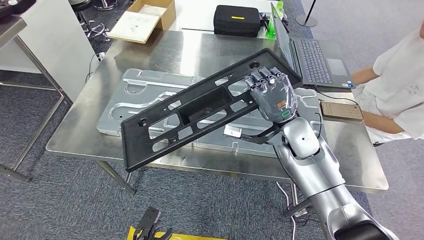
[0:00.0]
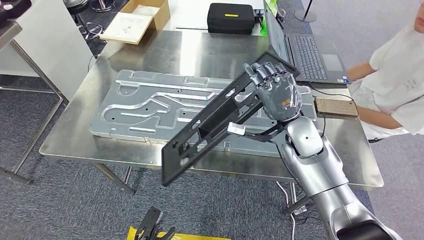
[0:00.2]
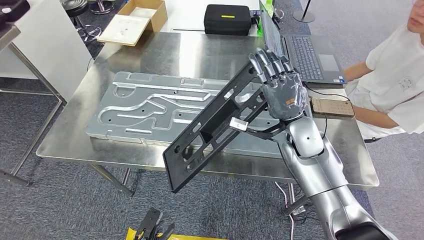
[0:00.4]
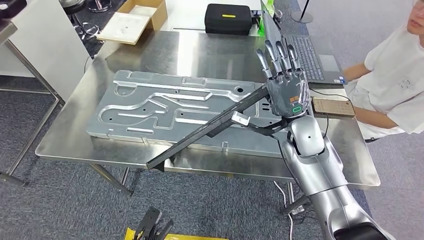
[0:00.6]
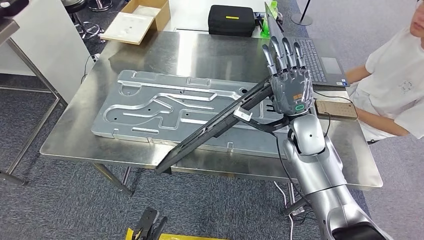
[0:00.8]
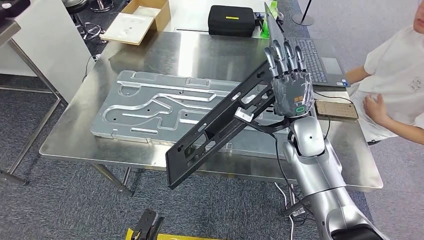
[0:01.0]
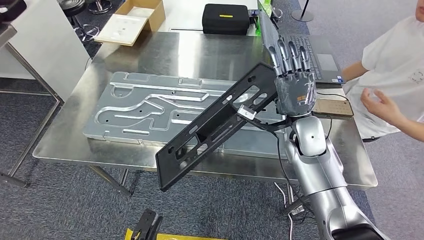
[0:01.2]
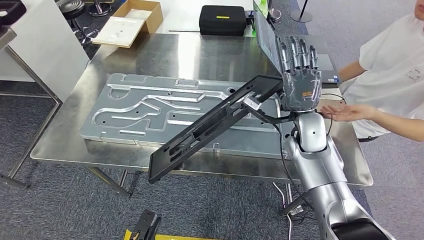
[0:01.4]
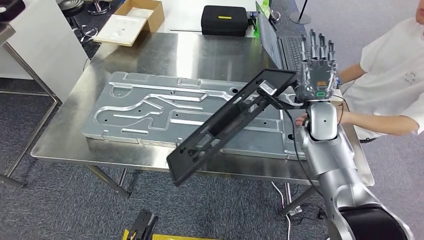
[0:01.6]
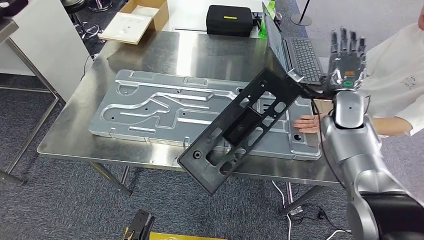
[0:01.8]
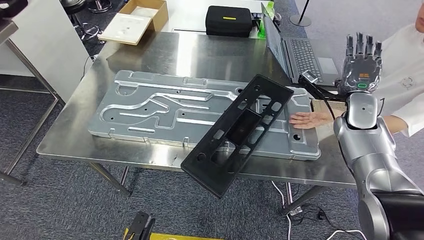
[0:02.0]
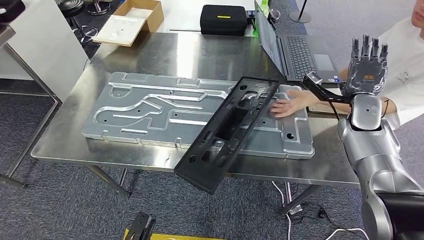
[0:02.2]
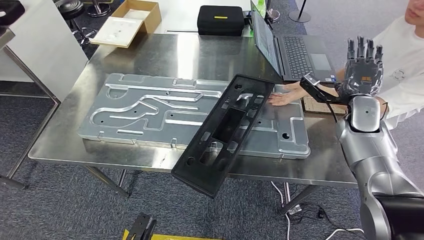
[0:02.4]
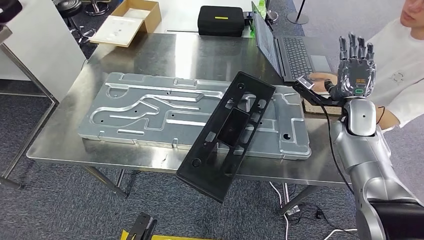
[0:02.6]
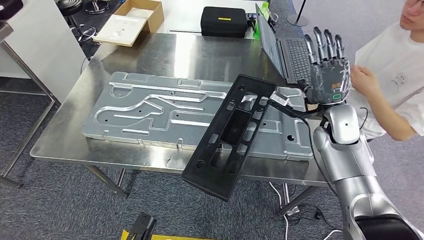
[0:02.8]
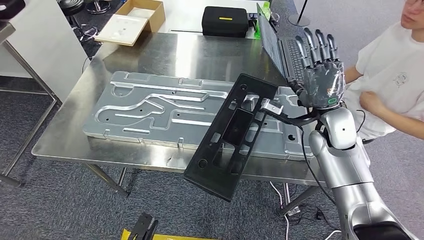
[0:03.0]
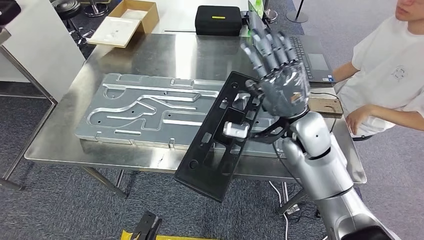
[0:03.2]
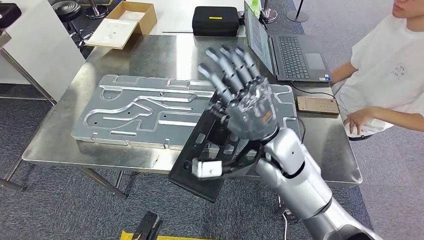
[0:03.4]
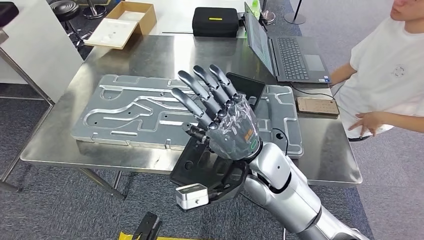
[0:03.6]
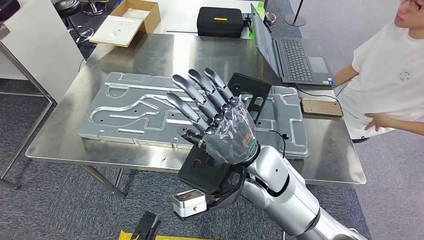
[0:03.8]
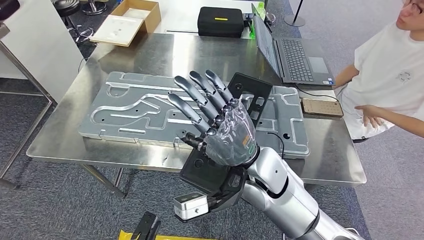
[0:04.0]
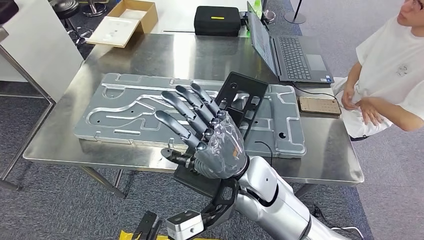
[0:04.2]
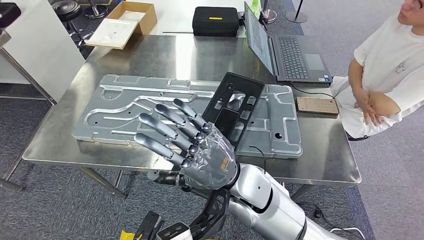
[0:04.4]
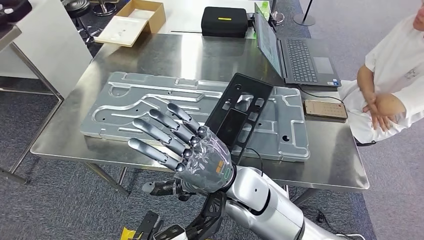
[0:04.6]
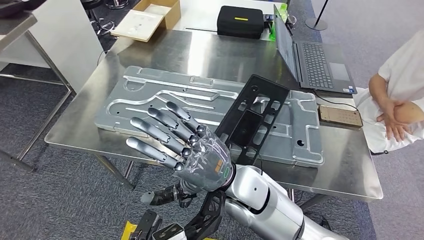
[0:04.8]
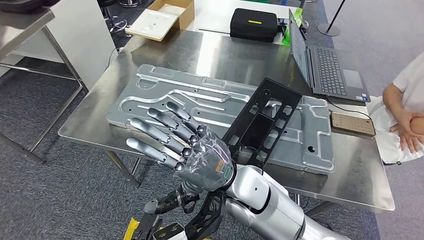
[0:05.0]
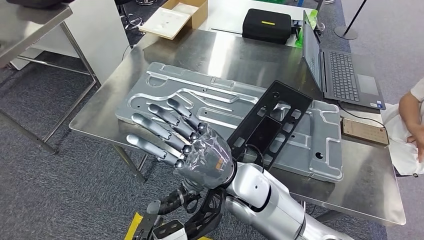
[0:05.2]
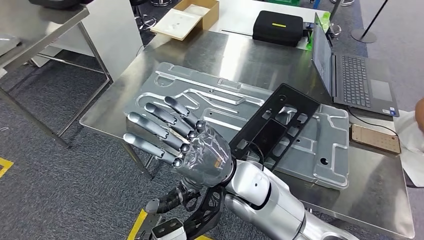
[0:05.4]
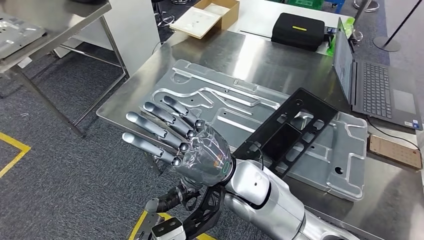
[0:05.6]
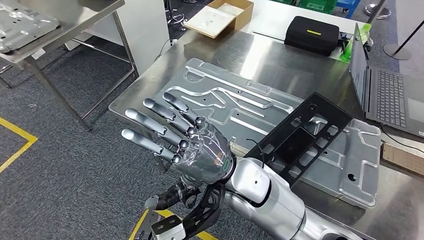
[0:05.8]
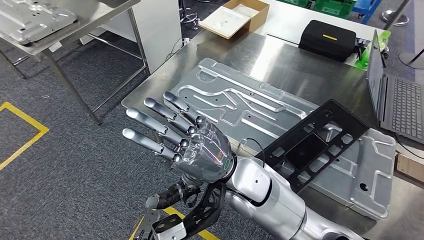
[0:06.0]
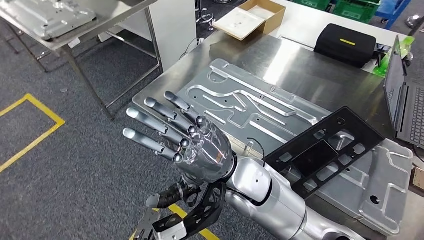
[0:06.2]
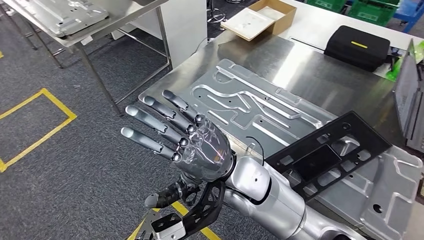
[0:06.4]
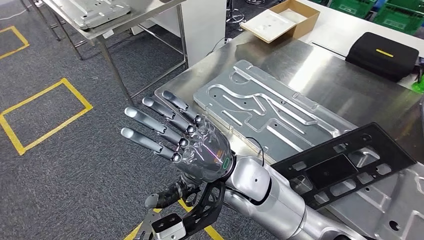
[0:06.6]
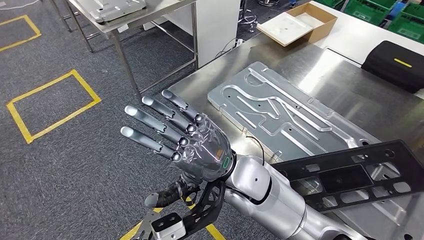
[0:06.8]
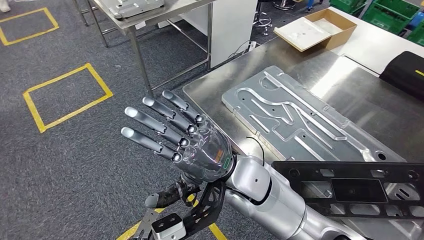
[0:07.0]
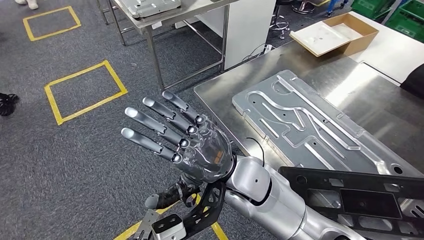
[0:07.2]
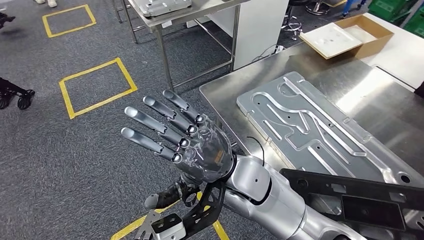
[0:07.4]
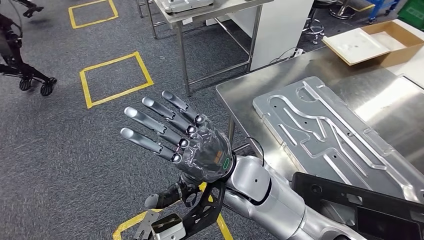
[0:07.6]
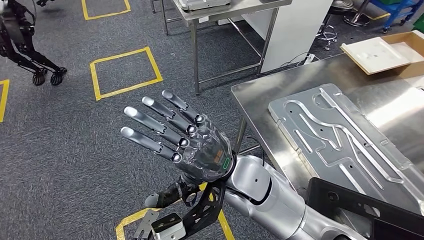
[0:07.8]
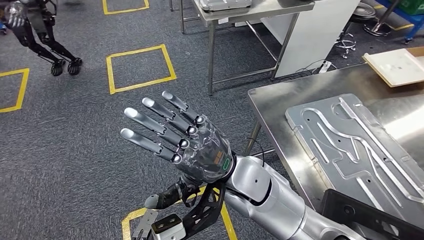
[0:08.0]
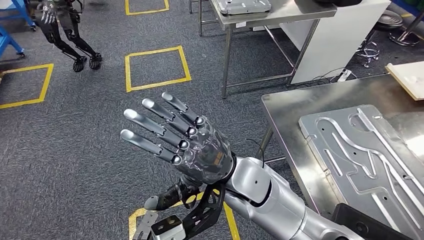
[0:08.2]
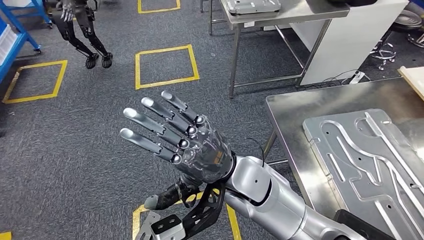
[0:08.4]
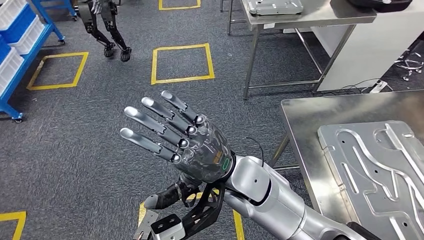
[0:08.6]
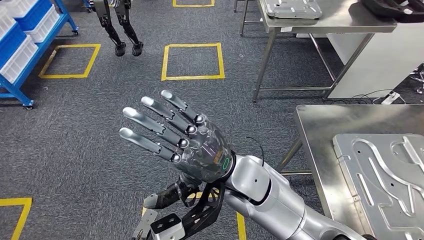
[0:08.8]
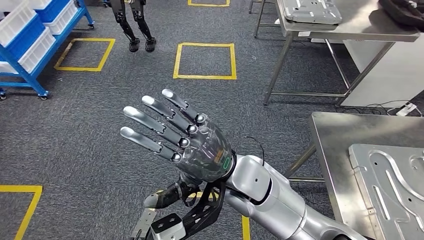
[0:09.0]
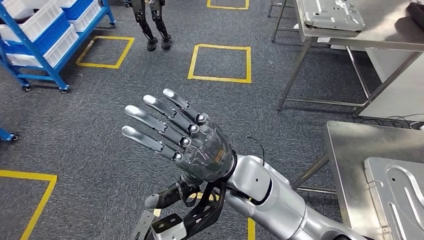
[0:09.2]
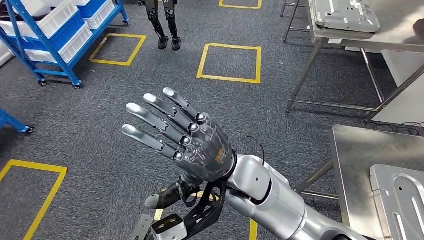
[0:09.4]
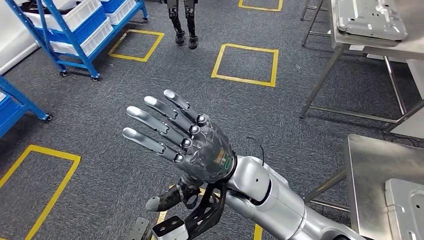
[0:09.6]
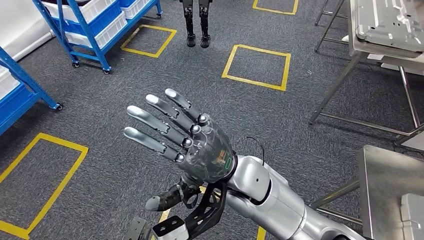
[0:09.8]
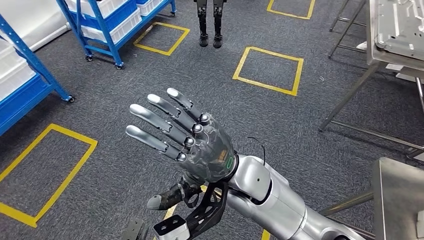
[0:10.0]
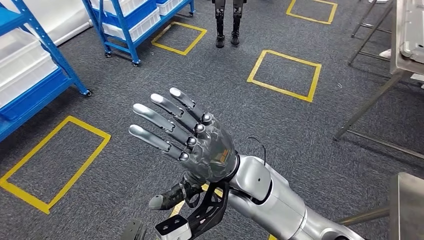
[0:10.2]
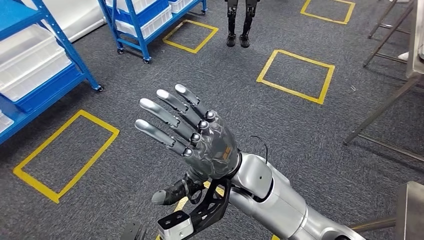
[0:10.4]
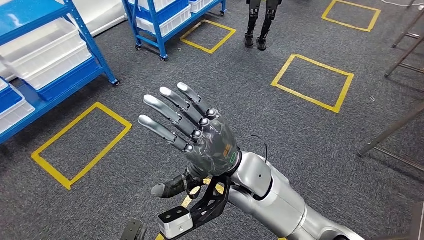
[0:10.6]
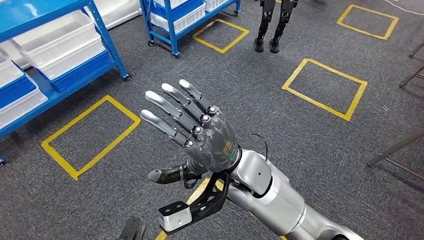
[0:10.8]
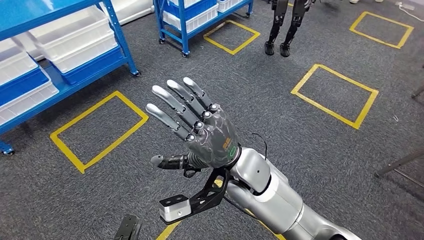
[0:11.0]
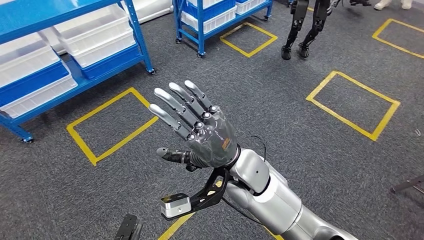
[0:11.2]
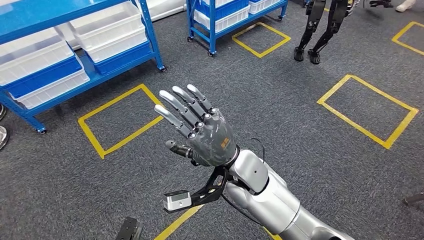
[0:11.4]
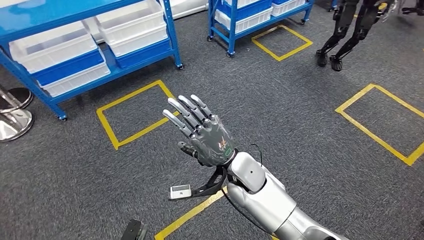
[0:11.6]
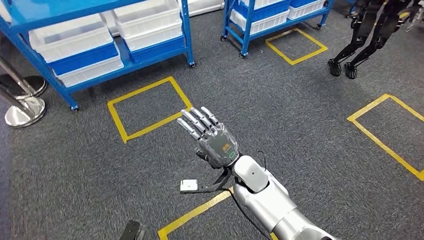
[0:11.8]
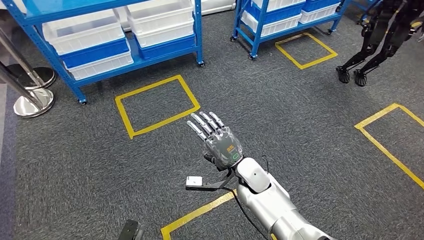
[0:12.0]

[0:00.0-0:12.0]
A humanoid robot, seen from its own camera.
Step, 0:00.0 to 0:02.8: Insert the large material into the corresponding slot on the workbench.

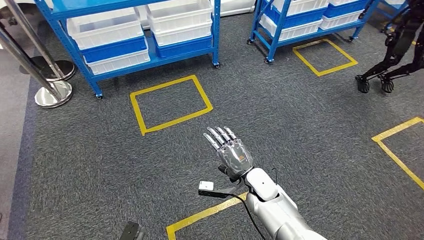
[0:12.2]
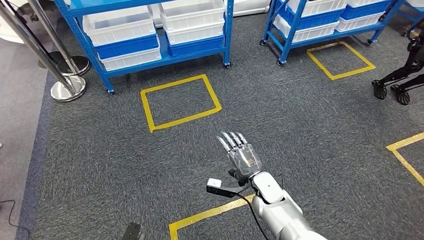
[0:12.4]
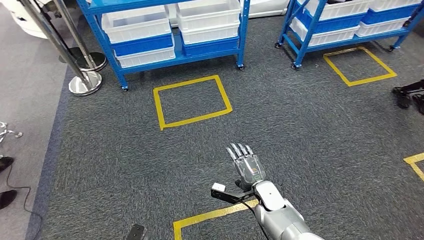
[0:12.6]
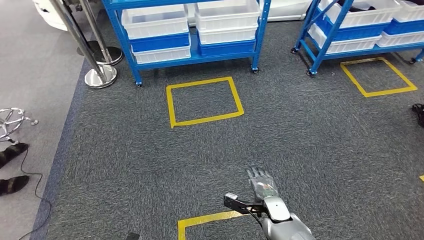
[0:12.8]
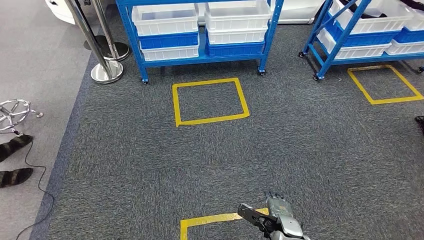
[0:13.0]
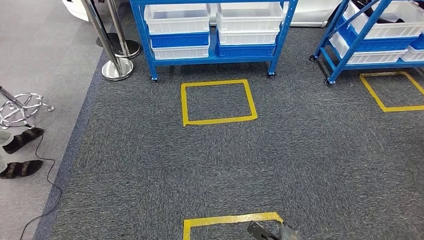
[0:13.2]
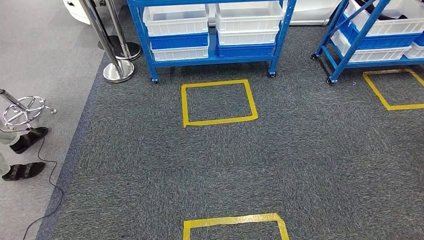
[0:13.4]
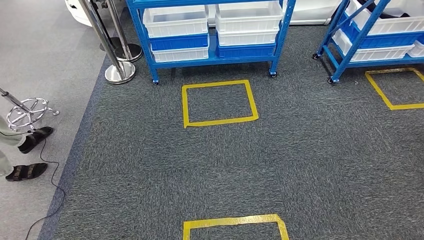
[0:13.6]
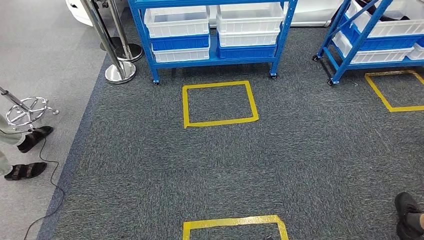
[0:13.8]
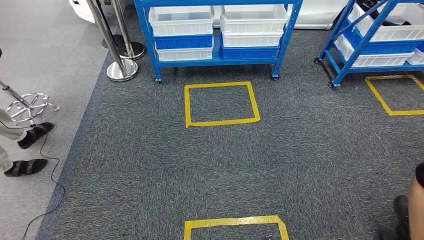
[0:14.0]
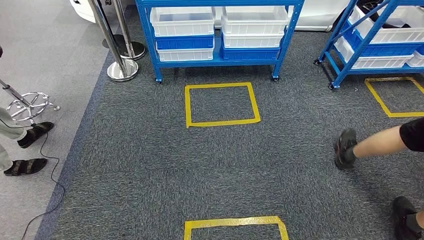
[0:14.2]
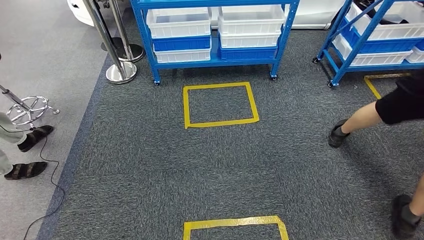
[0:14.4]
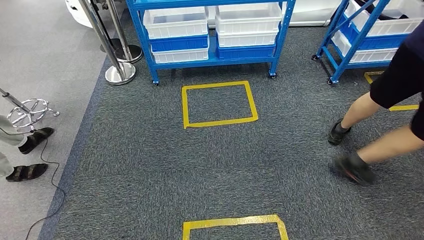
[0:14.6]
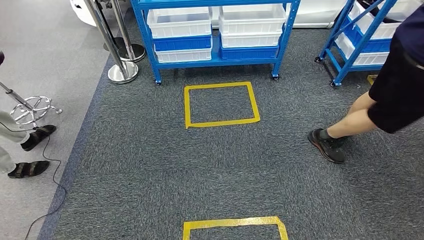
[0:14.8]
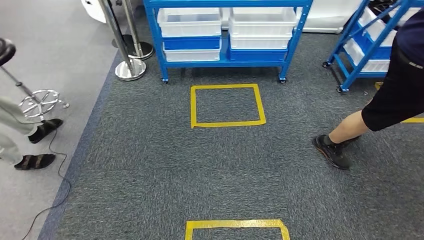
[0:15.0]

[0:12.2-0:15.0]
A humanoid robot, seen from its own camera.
Step, 0:12.2 to 0:15.0: Move to the initial position of the shelf.
